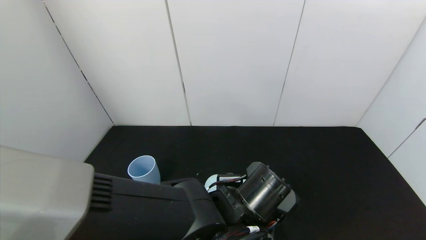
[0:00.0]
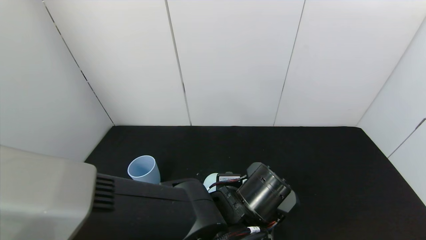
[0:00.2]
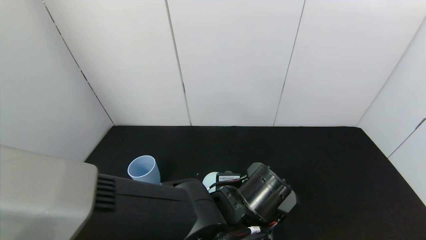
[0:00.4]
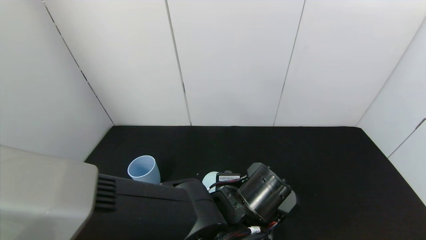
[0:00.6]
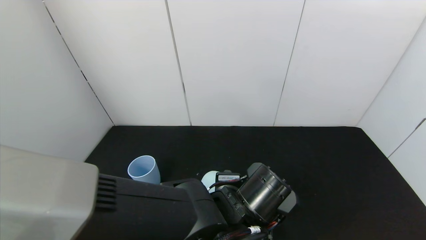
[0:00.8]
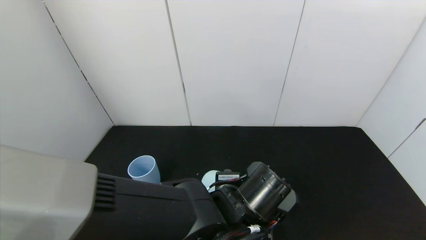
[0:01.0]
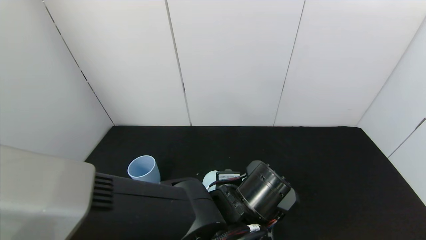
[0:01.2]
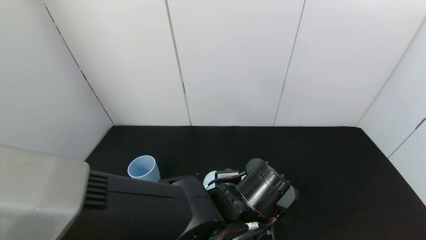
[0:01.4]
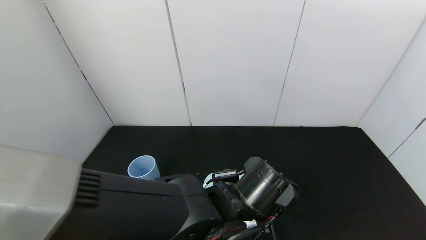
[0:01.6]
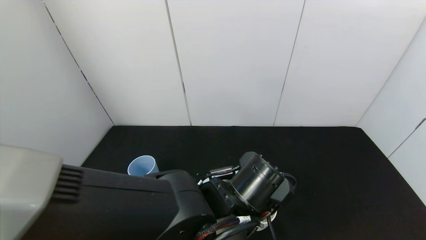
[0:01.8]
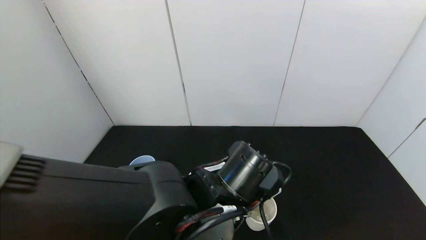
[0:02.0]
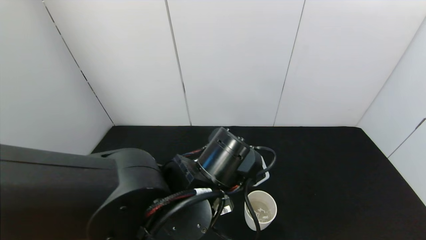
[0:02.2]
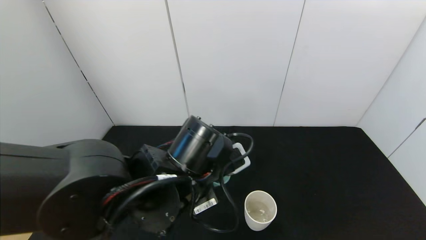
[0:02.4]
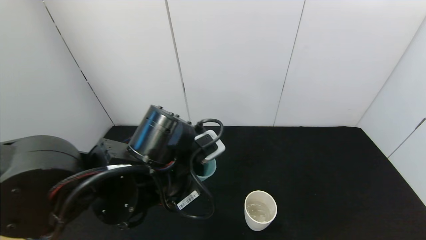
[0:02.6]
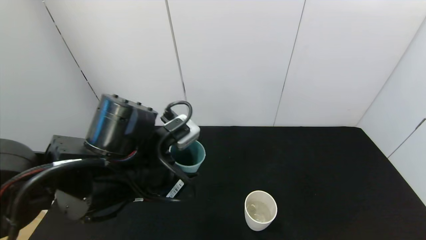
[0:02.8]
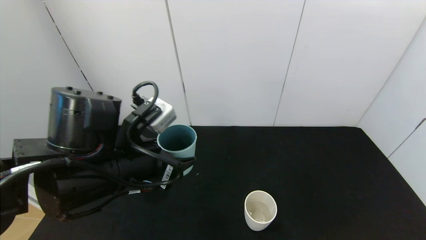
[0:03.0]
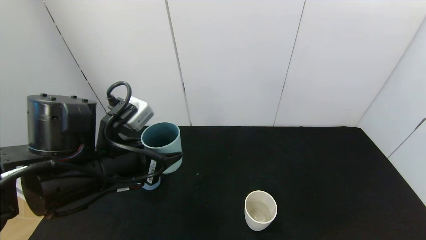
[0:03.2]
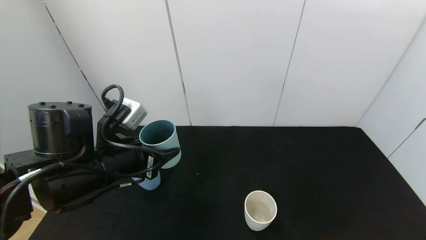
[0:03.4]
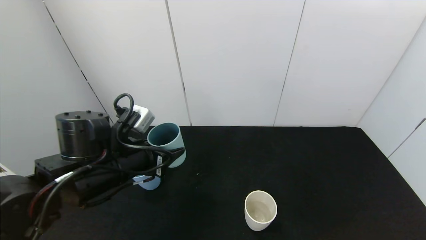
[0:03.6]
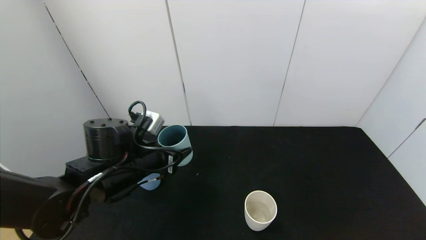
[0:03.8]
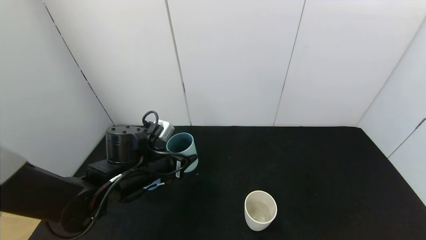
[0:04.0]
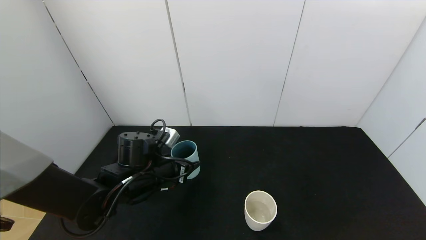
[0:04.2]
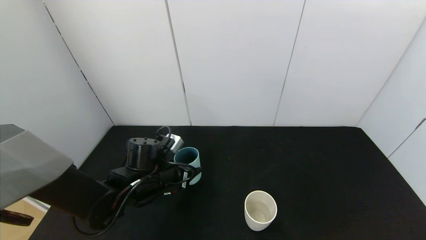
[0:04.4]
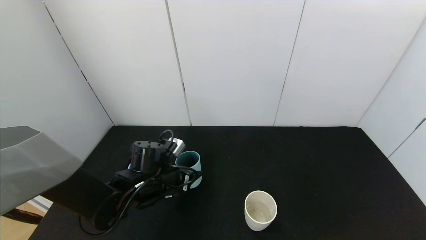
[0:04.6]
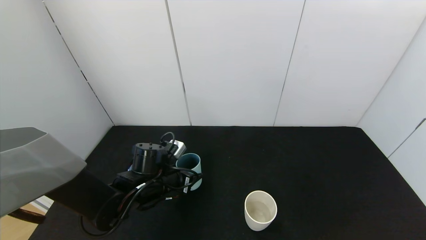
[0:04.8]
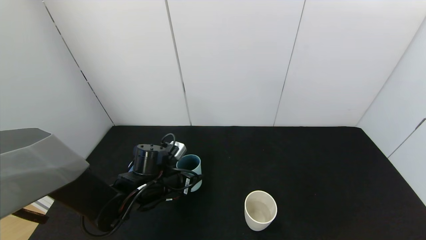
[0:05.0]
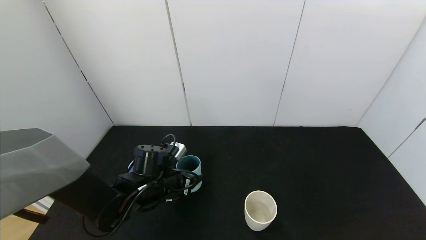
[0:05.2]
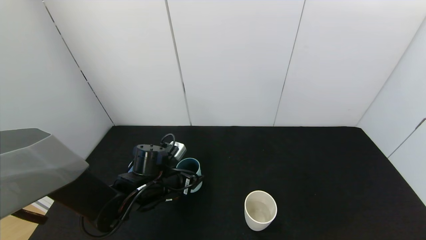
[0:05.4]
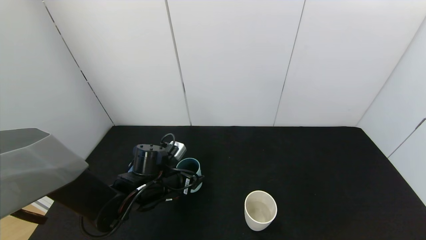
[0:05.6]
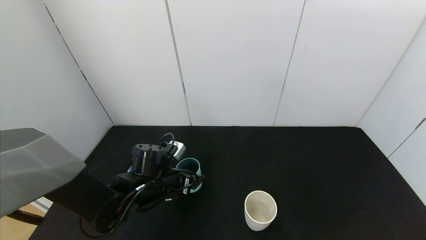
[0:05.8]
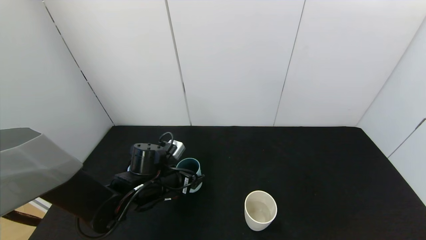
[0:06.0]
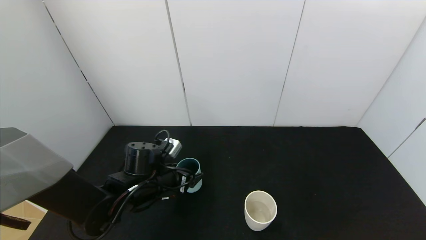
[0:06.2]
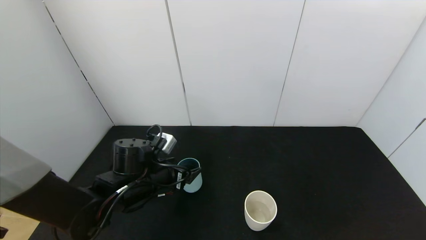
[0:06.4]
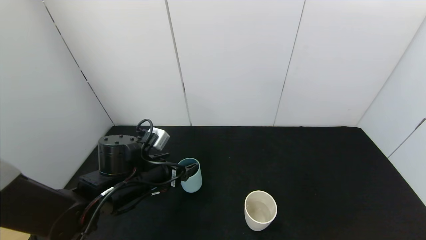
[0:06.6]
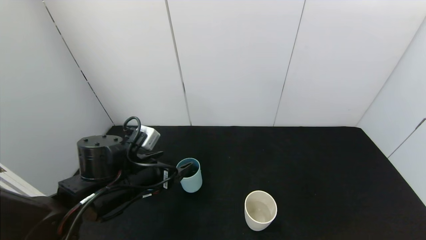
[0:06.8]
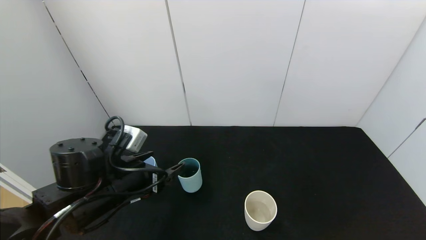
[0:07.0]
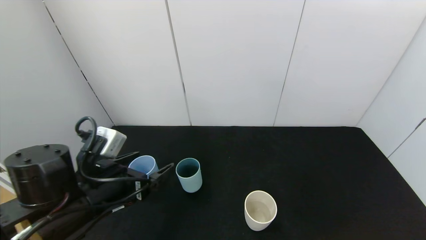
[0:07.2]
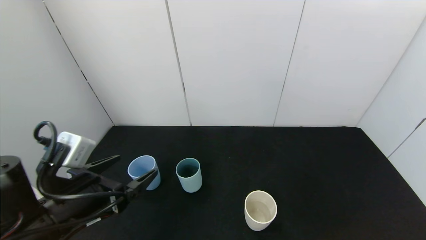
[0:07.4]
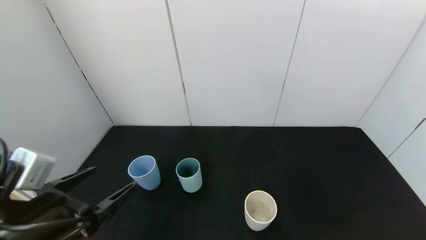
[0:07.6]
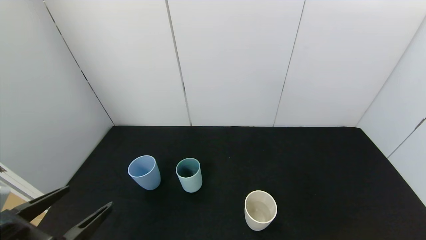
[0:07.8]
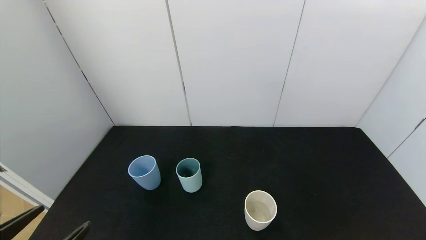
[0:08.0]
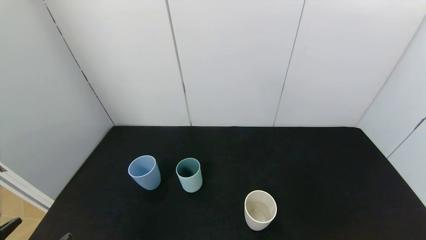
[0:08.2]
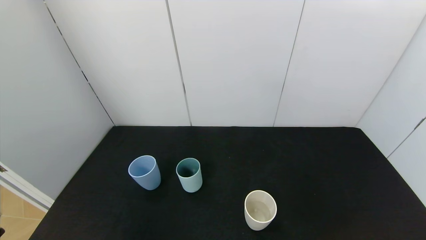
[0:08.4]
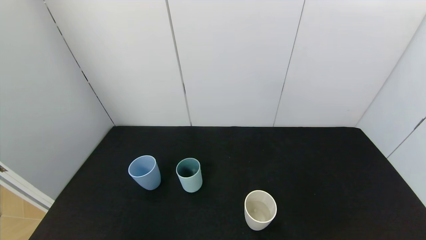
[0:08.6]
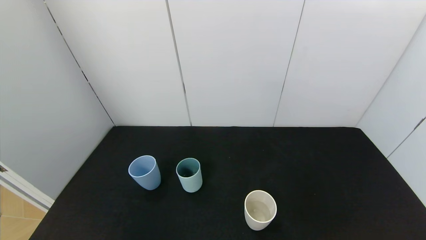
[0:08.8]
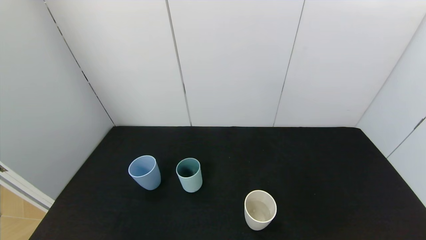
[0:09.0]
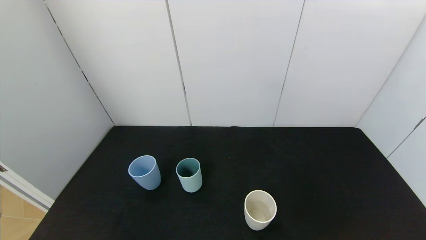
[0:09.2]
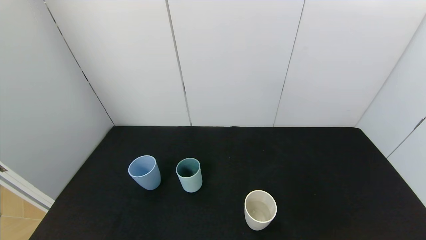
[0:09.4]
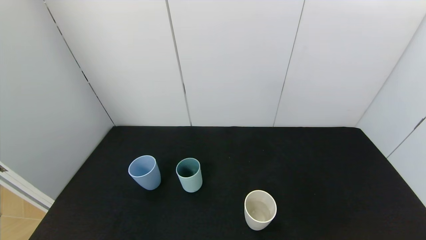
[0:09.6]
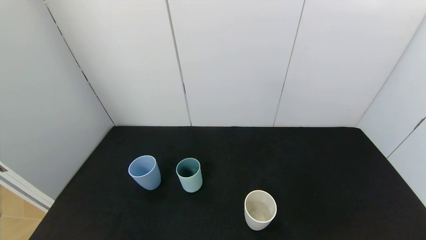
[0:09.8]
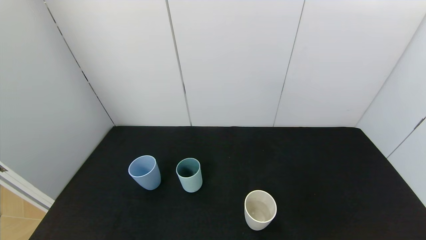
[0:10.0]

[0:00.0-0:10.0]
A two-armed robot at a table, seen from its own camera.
Task of the whole recording: use the gripper to pour the water into the other two cups on black table.
Step, 0:01.8 to 0:07.0: Place the green cup with the left gripper.
0:00.0 to 0:01.4: Neither gripper changes place.
0:01.4 to 0:02.8: The left gripper moves to the left and upward, about 15 cm.
0:02.8 to 0:04.2: The left gripper is displaced downward and forward by some 15 cm.
0:04.2 to 0:05.8: The left gripper opens up.
0:05.8 to 0:07.2: The left gripper goes some 15 cm backward, upward and to the left.
0:07.2 to 0:08.6: The left gripper heads backward, covering about 20 cm.
